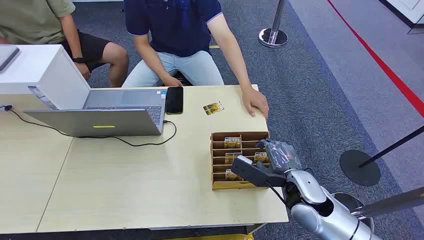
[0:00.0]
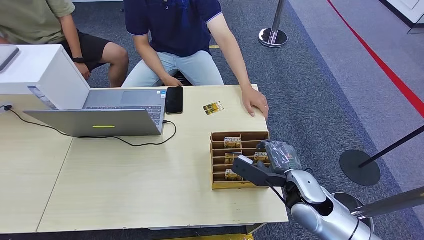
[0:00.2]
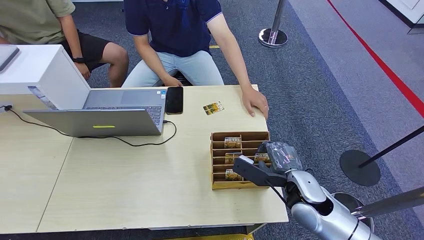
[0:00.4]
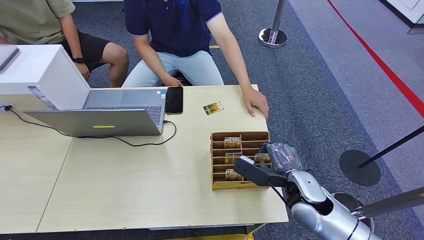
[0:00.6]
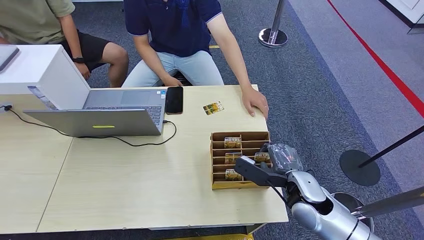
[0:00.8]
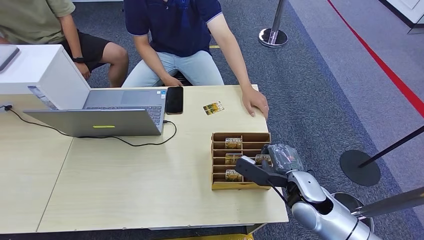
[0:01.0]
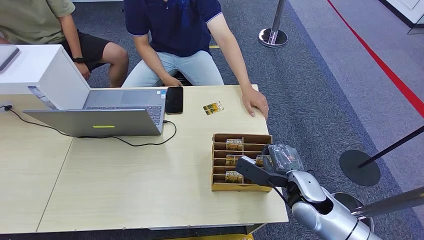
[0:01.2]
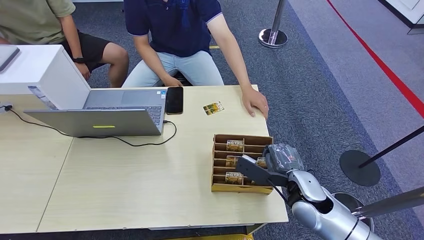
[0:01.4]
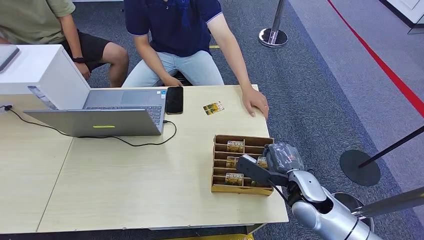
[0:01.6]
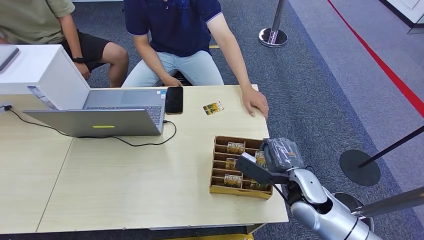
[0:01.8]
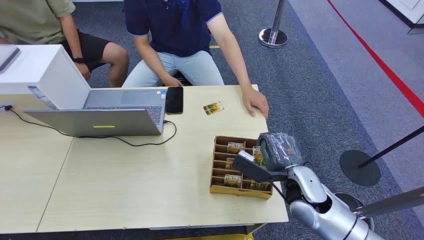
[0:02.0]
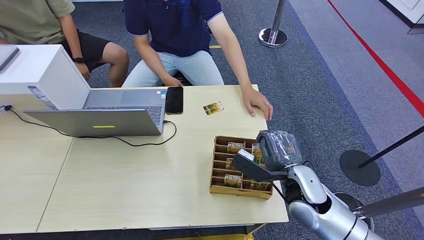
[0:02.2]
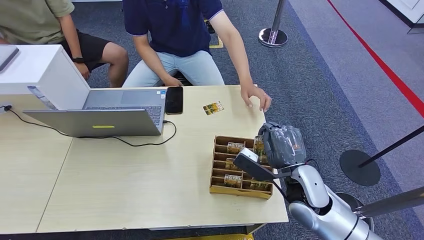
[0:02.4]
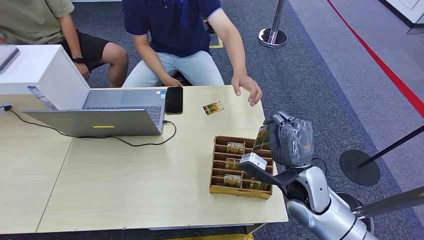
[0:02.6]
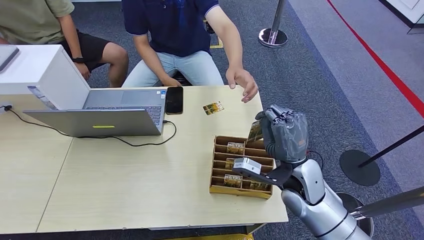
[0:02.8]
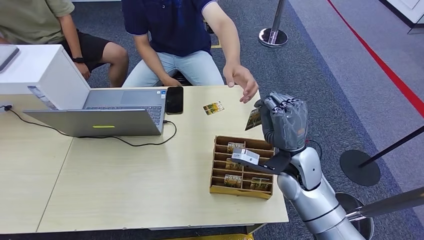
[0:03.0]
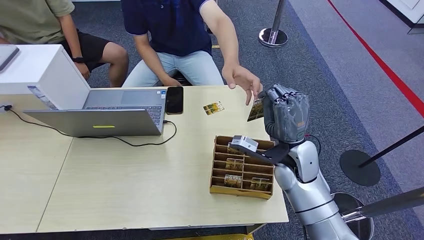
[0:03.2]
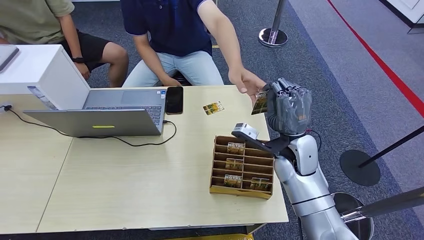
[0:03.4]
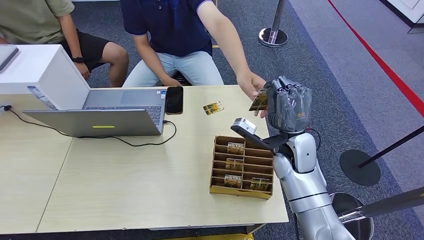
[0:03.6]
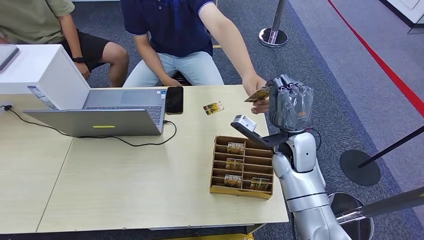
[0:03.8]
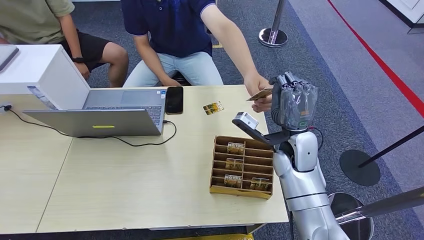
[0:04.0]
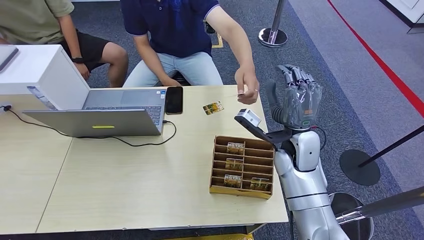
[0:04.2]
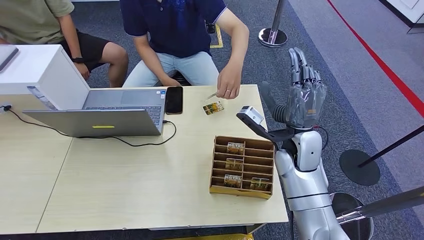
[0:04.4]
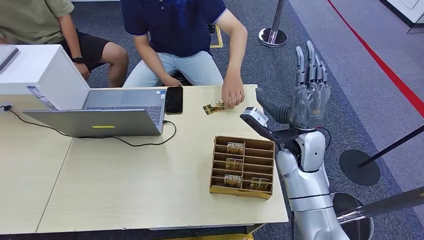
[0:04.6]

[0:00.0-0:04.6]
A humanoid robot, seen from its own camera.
Step, 0:00.0 to 0:02.8: Pick up the key card from the card box.
Step, 0:03.0 to 0:04.4: Hand the key card to the target.
0:01.6 to 0:03.0: The right hand heads upward, covering about 5 cm.
